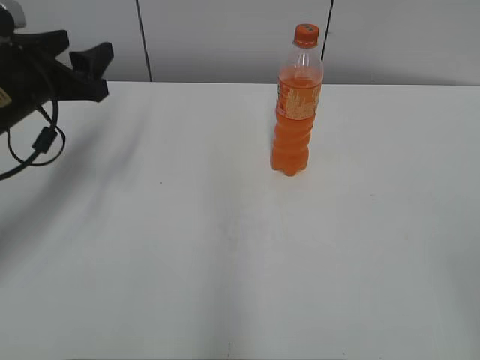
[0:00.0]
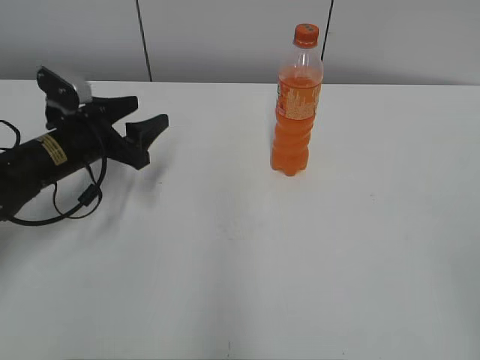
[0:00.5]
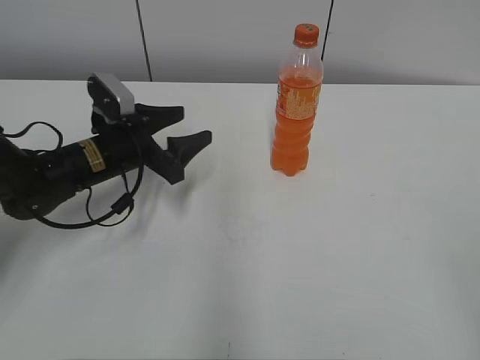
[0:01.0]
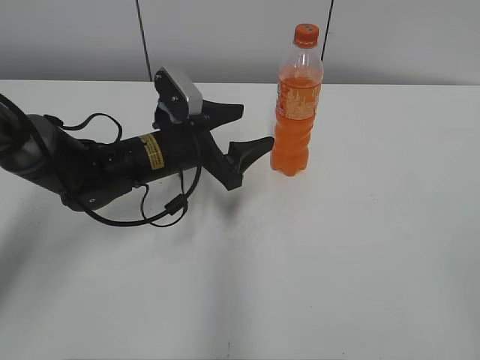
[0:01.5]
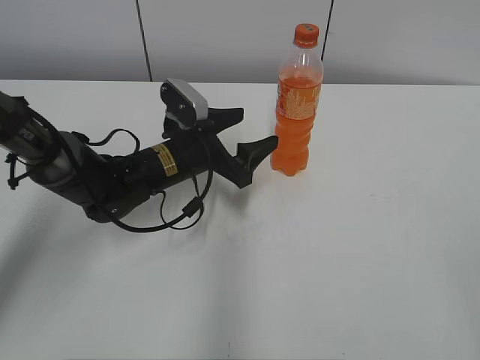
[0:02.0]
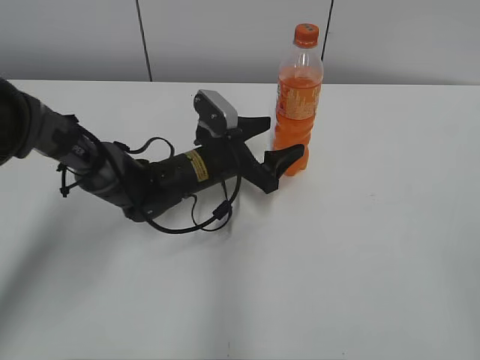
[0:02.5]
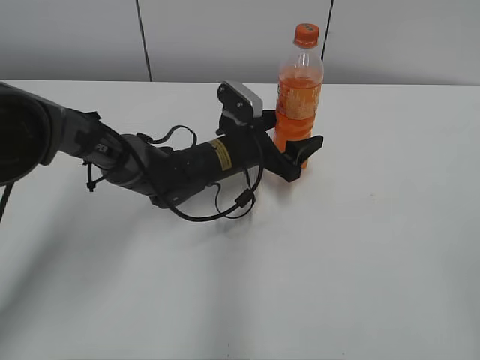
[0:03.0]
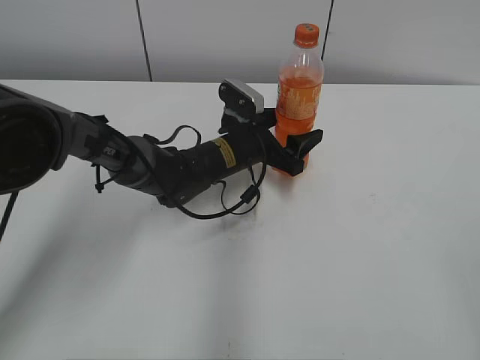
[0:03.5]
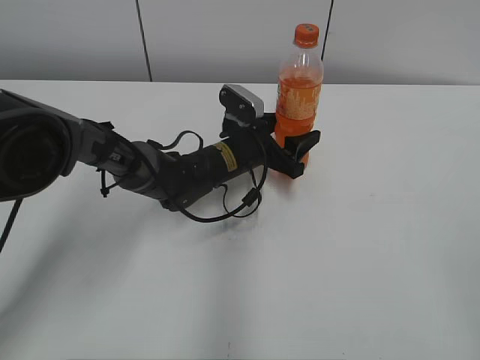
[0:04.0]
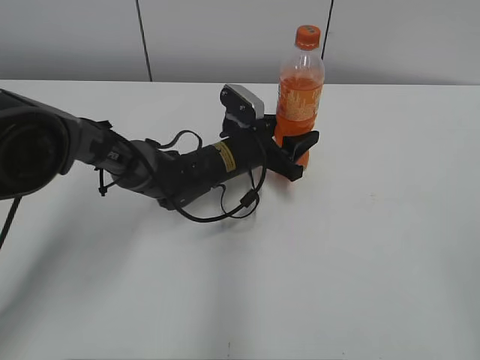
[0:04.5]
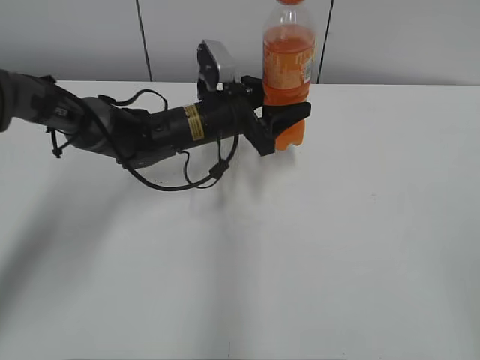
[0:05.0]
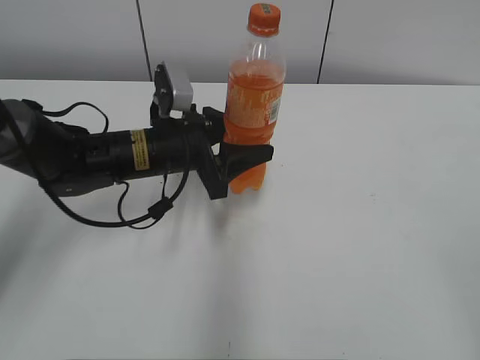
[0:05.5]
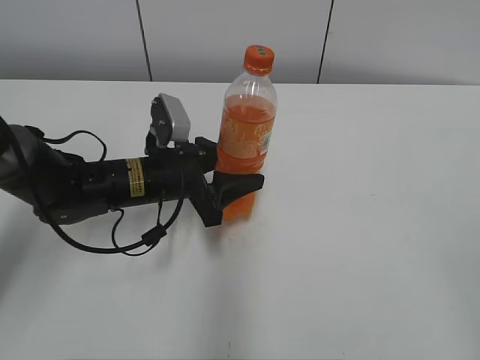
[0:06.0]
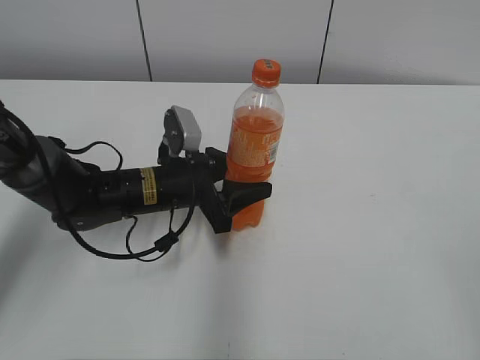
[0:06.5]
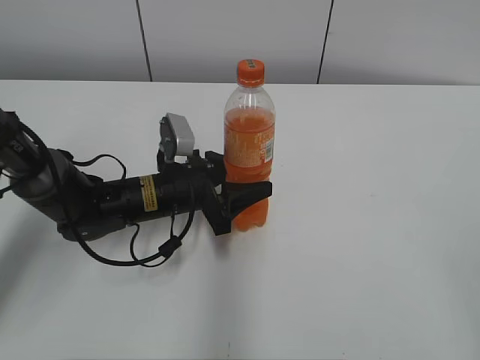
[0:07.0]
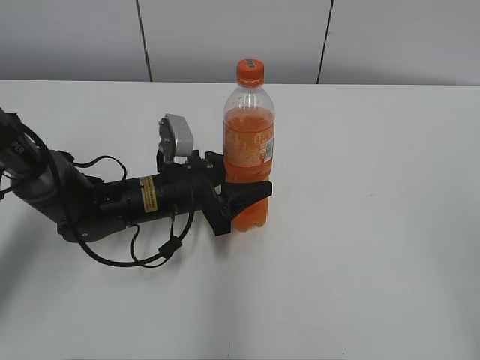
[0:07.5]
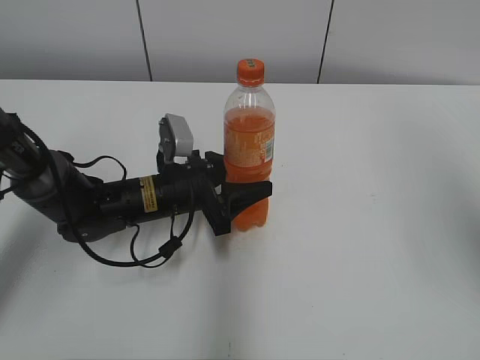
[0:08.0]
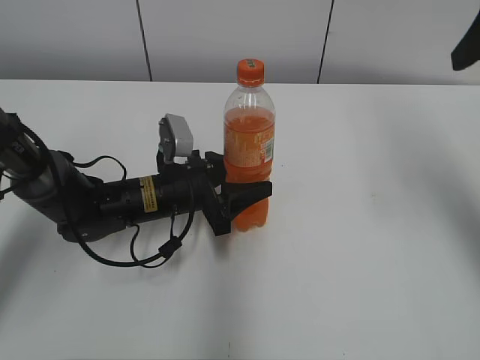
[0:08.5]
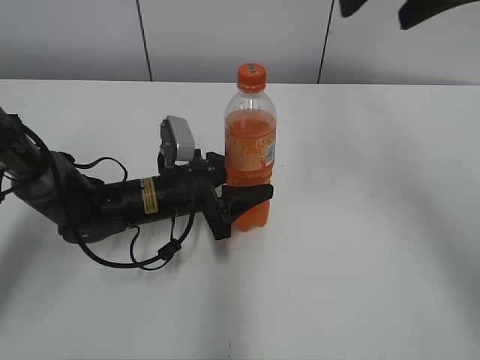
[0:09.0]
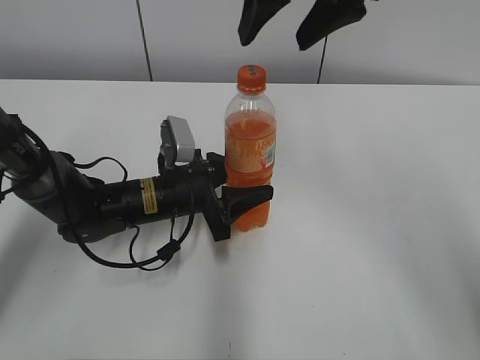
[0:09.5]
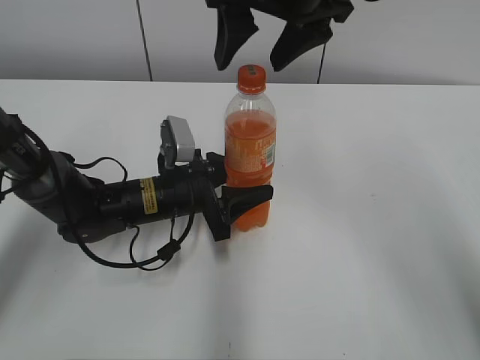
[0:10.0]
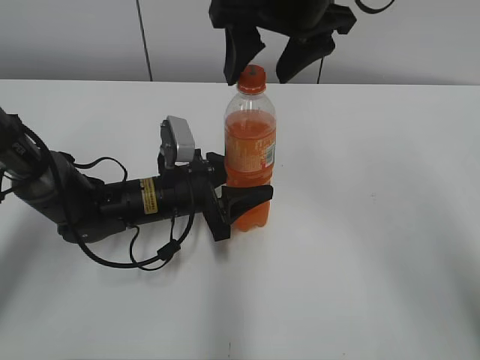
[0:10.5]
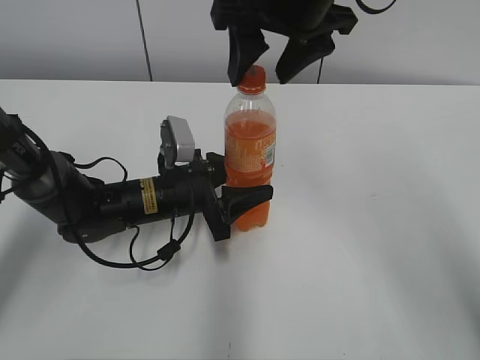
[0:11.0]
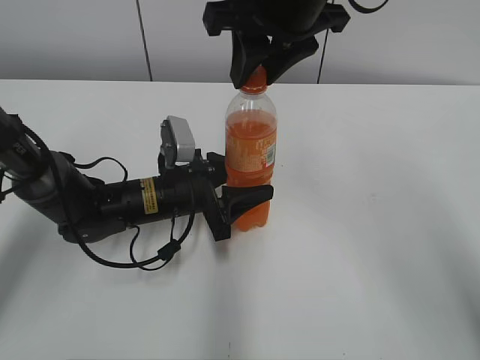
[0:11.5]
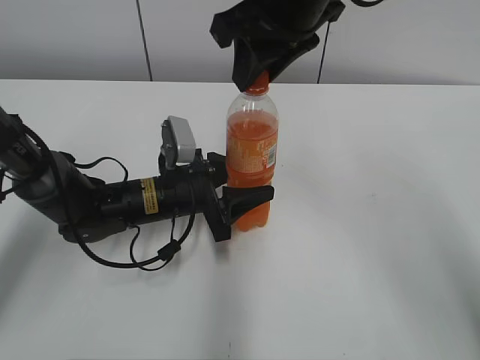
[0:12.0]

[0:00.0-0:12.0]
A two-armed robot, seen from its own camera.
Step, 0:00.0 to 0:04.0: Grab the Mirinda with the left hand.
Step, 0:04.5 to 0:07.0: Move the Mirinda from right to left.
0:00.0 to 0:02.0: The left gripper shifts approximately 20 cm to the right and downward, and opens its fingers.
0:02.0 to 0:04.0: The left gripper moves to the right, approximately 5 cm, and closes its fingers.
0:04.0 to 0:06.0: The left gripper moves to the left and backward, roughly 15 cm, and closes.
0:06.0 to 0:08.0: The right gripper heads forward and upward, covering roughly 20 cm.
0:08.0 to 0:10.0: The right gripper travels to the left and forward by roughly 30 cm.
0:10.0 to 0:12.0: The right gripper closes its fingers.

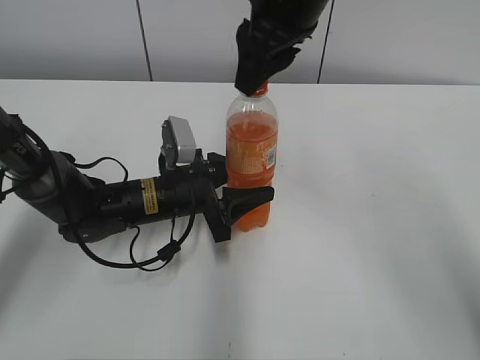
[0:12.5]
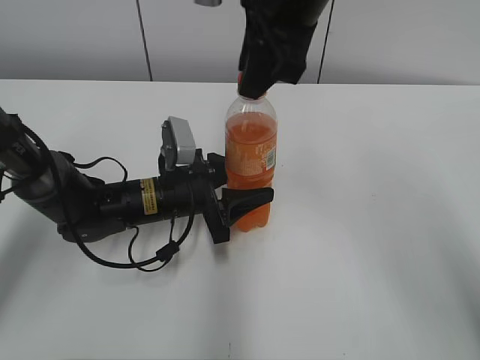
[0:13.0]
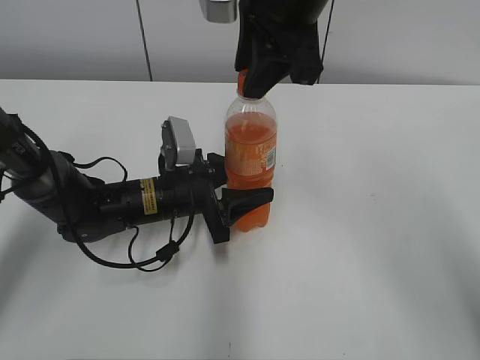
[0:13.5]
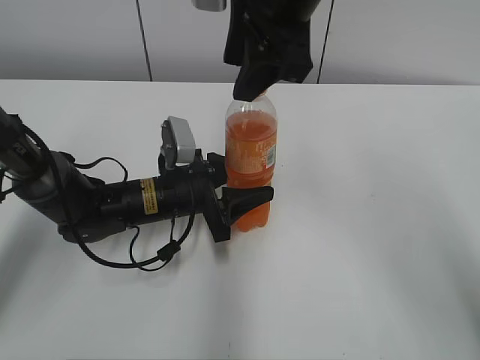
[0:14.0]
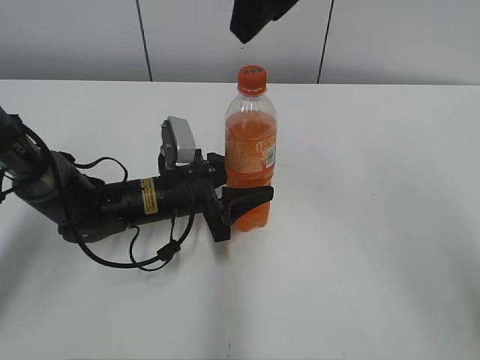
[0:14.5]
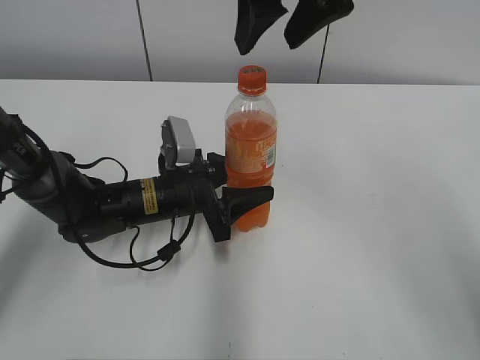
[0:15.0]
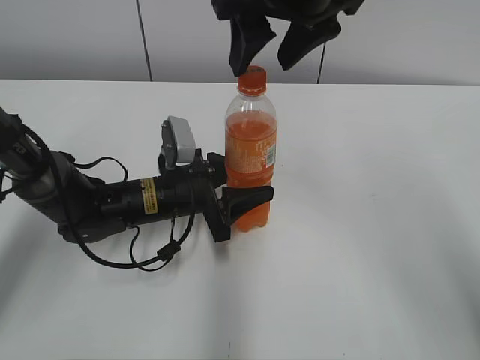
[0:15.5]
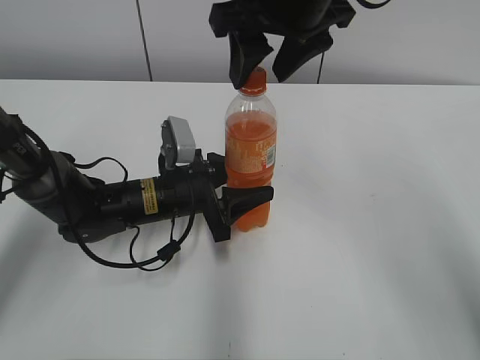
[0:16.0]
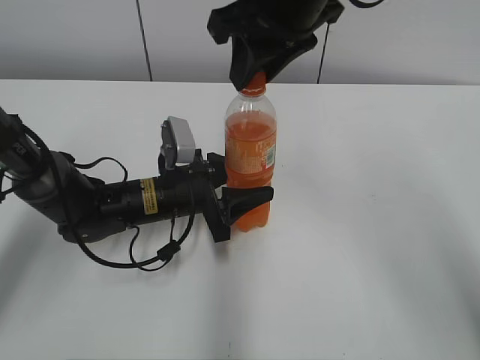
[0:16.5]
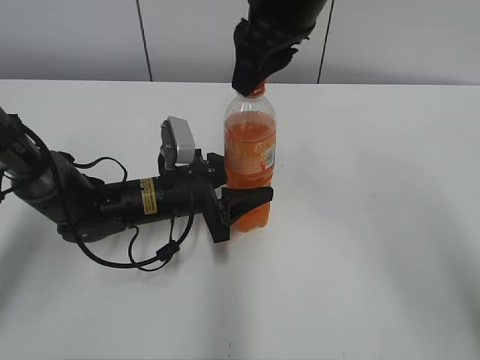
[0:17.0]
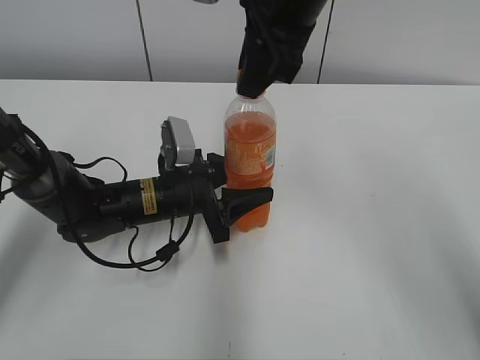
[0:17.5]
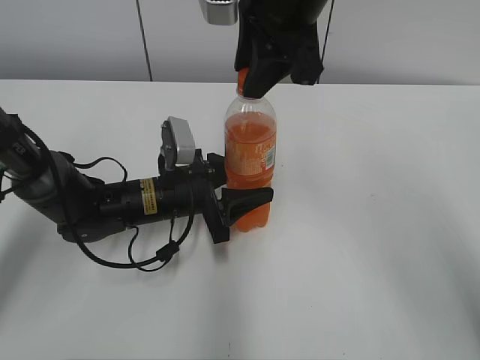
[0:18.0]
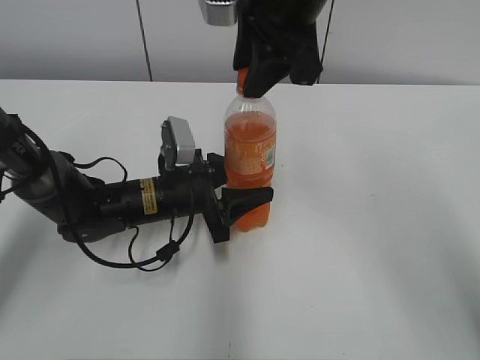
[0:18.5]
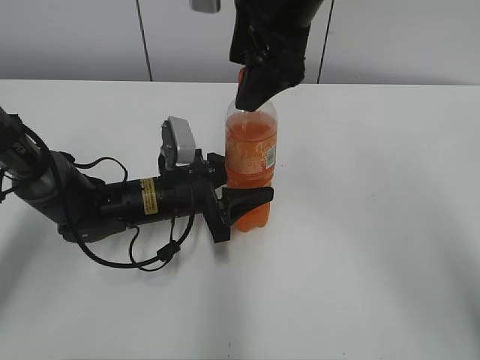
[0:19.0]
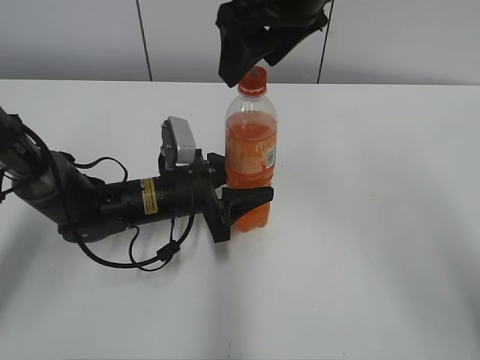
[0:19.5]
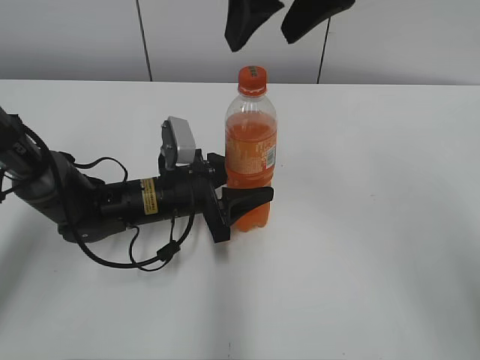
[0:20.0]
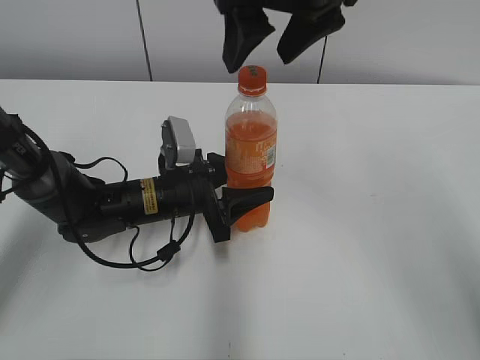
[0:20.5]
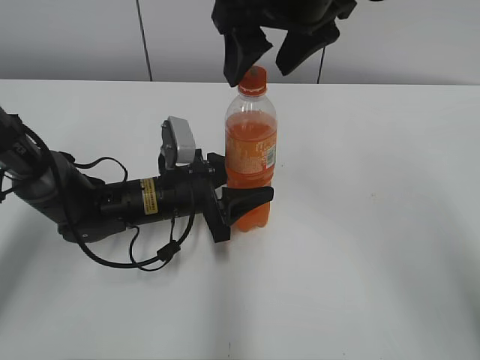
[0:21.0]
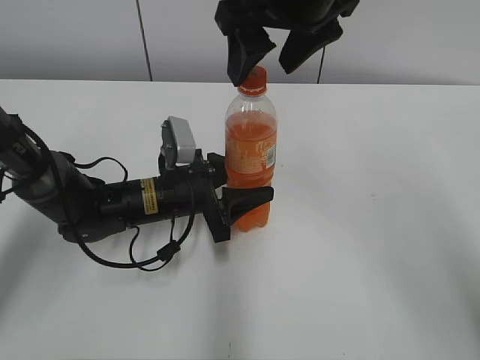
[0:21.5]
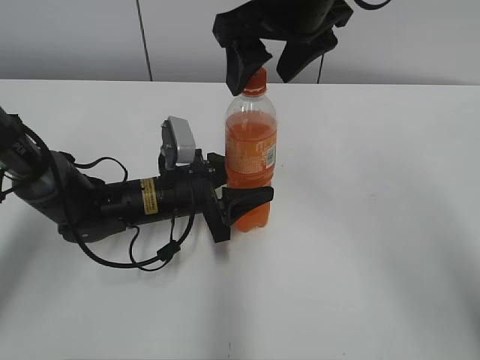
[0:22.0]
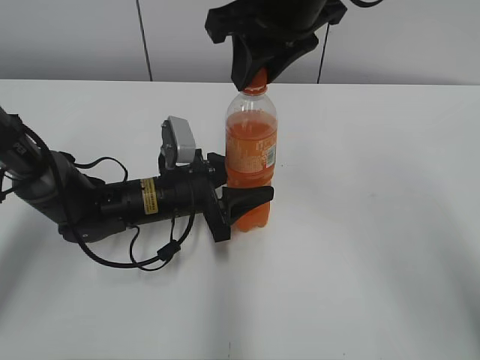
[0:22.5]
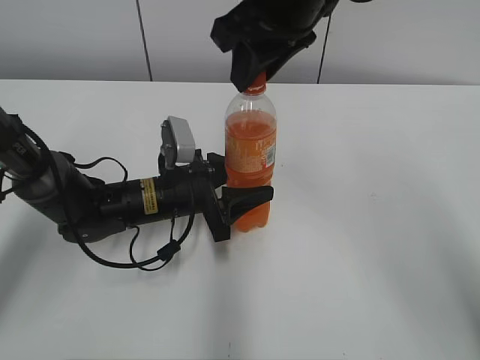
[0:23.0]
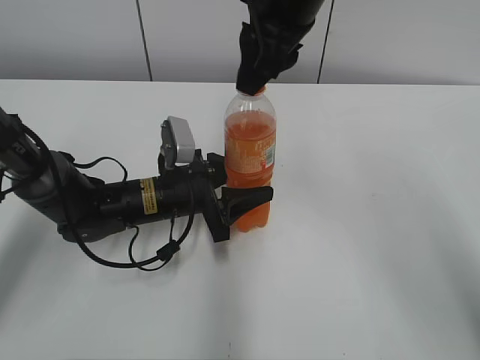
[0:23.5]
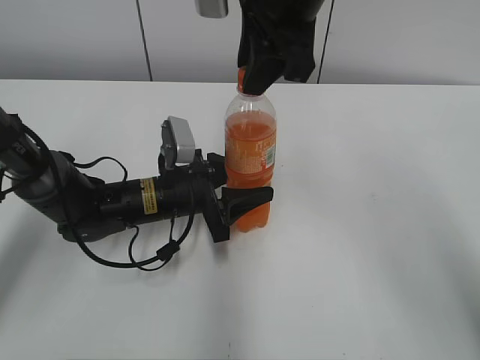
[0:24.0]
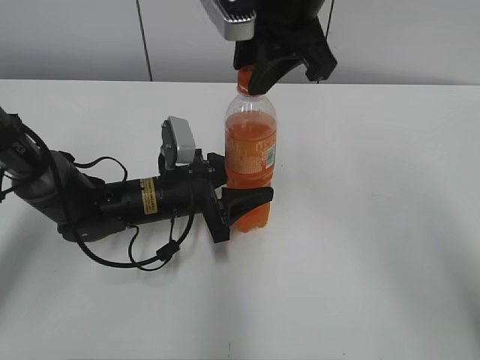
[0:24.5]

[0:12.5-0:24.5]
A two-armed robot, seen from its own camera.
0:12.5 to 0:14.5: The right gripper goes about 5 cm upward, and opens up.
0:14.5 to 0:16.5: The right gripper is displaced downward by about 5 cm, and closes its fingers.
0:18.5 to 0:20.5: The right gripper opens its fingers.
0:20.5 to 0:22.5: The right gripper closes its fingers.

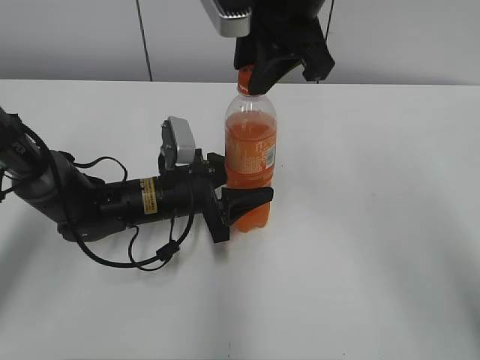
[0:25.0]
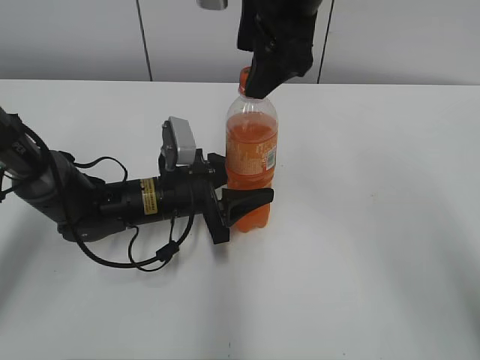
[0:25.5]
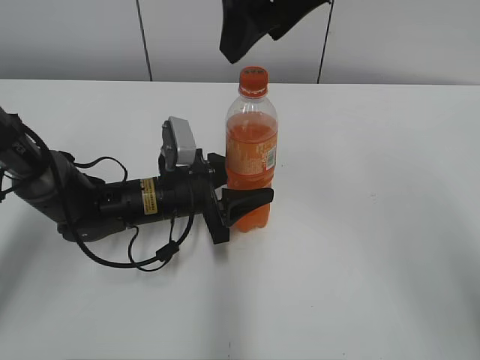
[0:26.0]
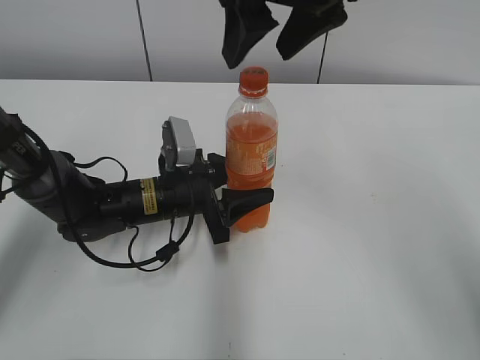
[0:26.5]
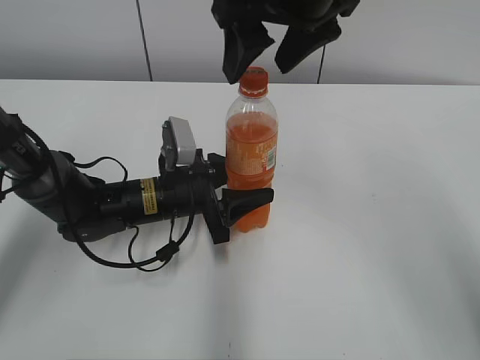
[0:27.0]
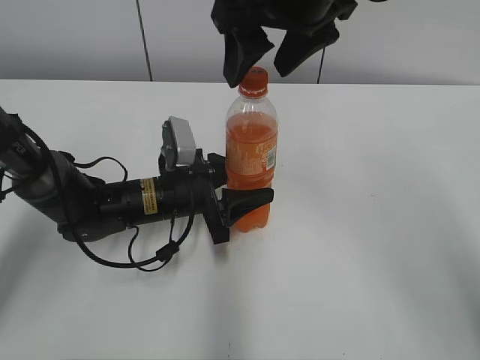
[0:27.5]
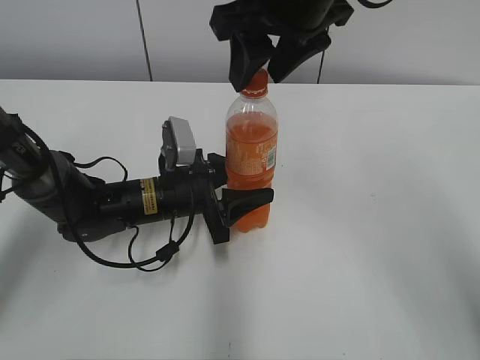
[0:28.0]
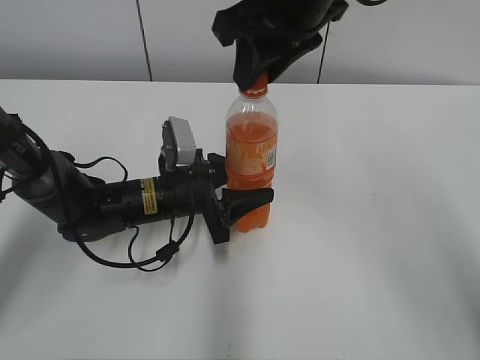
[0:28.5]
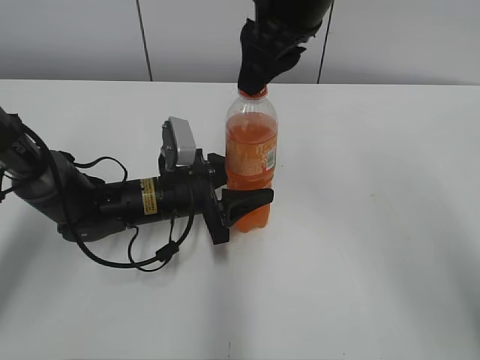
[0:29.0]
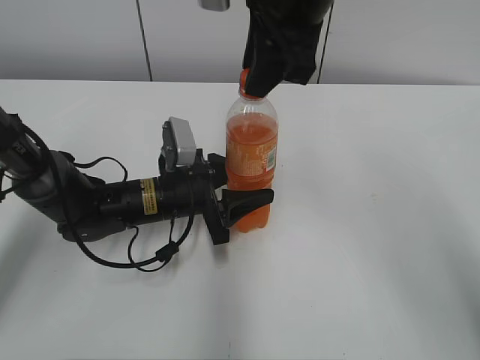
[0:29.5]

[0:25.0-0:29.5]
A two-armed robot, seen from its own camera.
0:25.0 to 0:27.0: The right gripper opens up.
0:27.0 to 0:29.5: The right gripper closes up.
